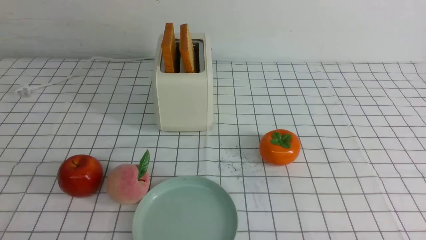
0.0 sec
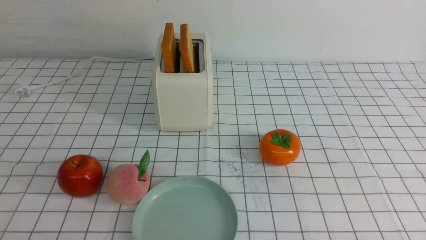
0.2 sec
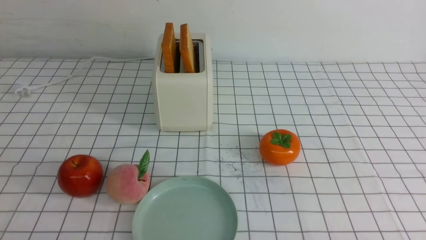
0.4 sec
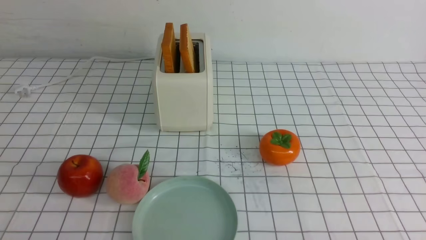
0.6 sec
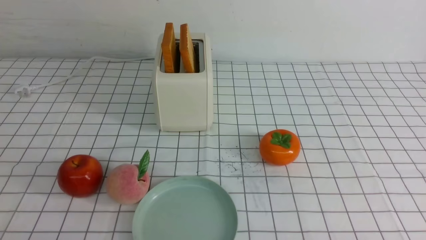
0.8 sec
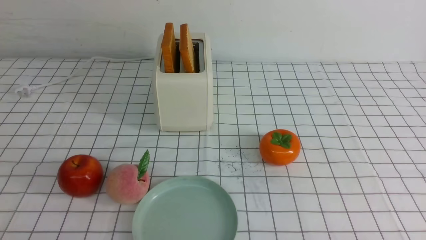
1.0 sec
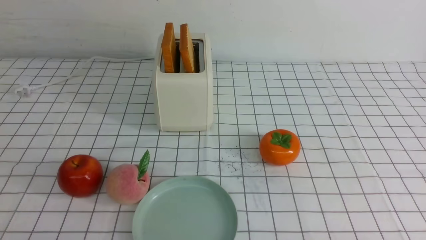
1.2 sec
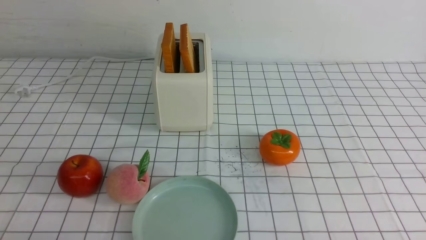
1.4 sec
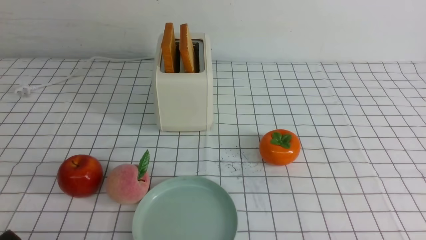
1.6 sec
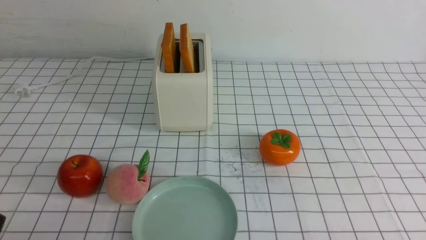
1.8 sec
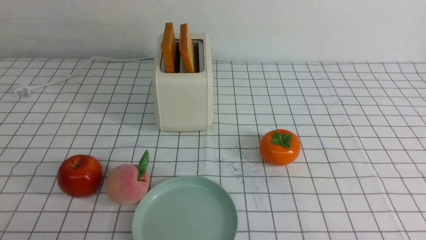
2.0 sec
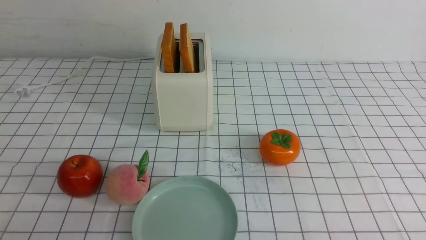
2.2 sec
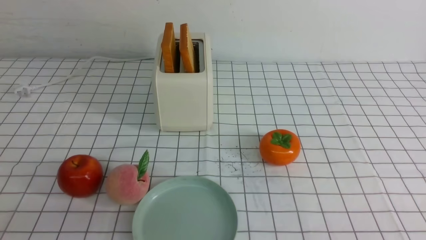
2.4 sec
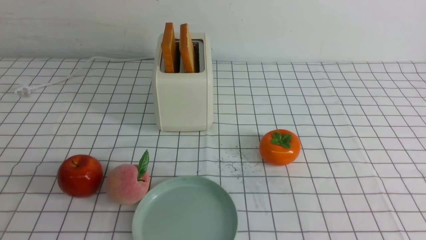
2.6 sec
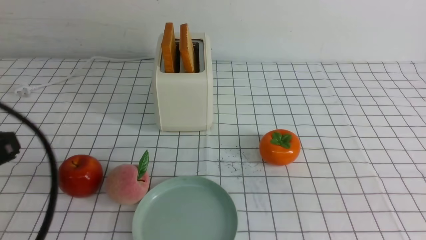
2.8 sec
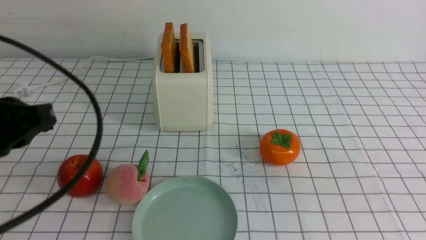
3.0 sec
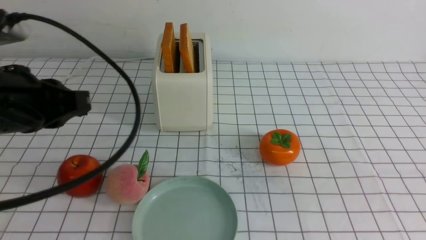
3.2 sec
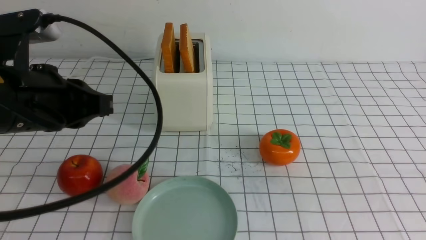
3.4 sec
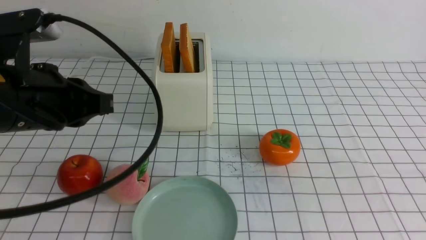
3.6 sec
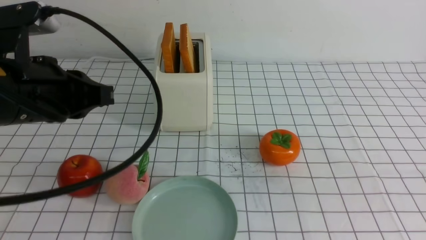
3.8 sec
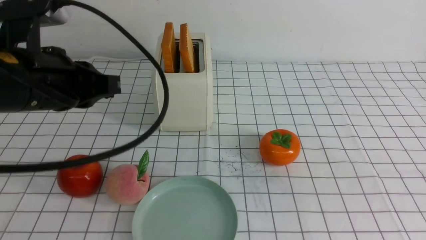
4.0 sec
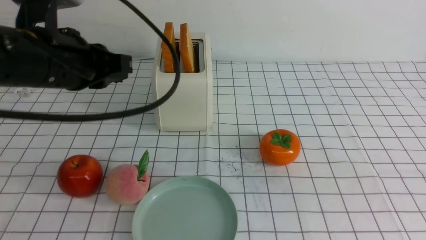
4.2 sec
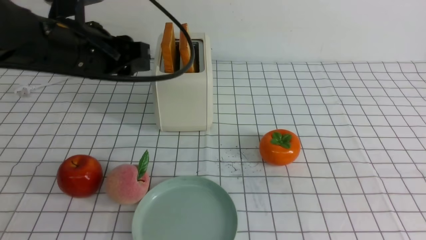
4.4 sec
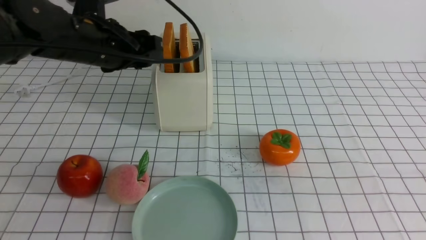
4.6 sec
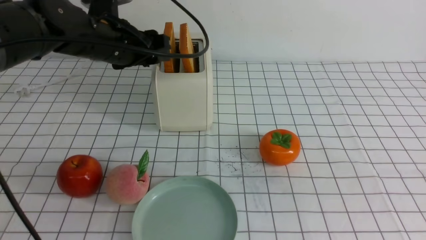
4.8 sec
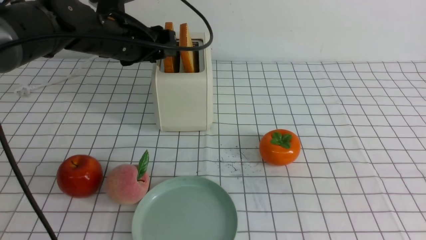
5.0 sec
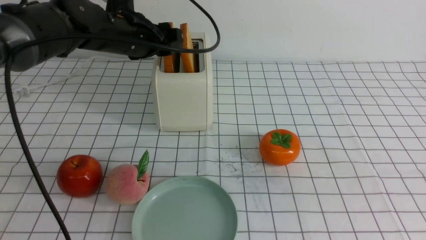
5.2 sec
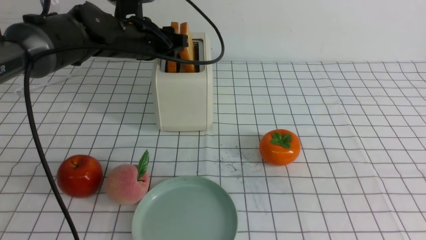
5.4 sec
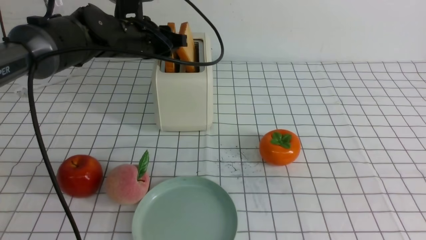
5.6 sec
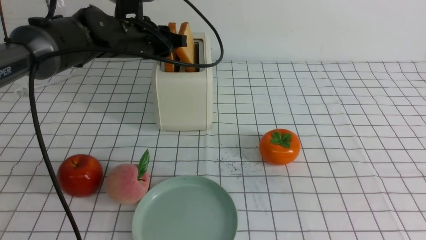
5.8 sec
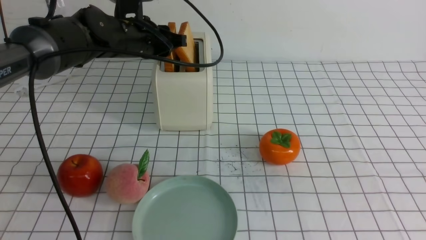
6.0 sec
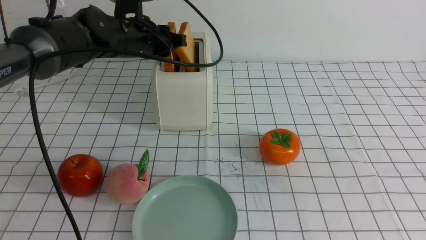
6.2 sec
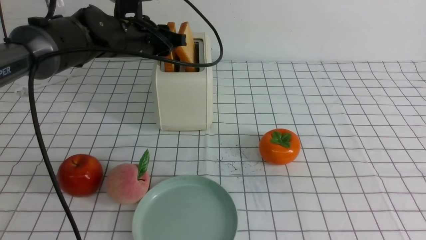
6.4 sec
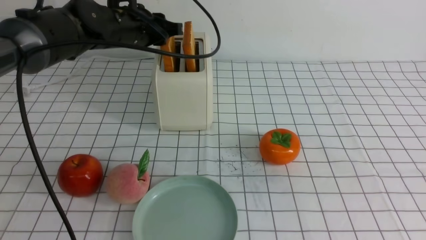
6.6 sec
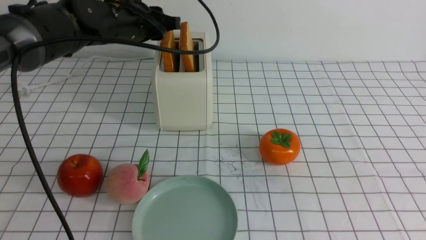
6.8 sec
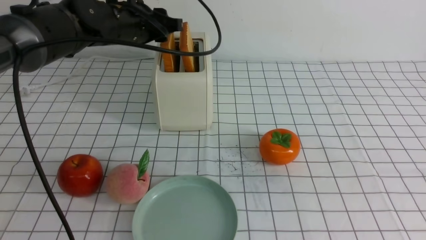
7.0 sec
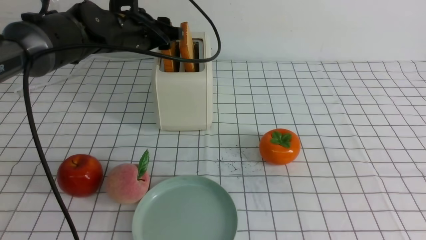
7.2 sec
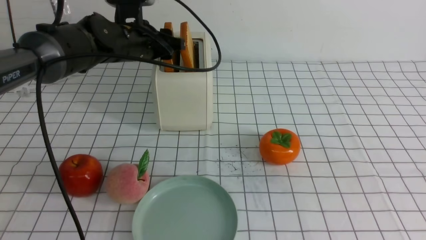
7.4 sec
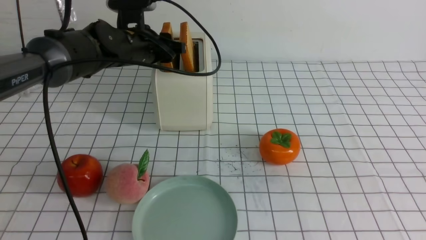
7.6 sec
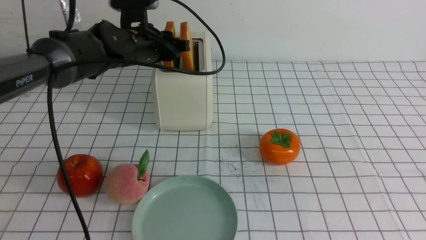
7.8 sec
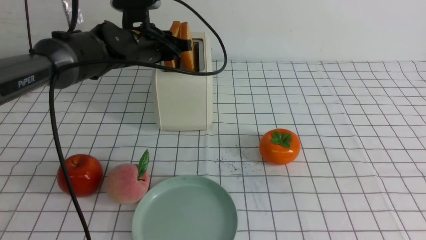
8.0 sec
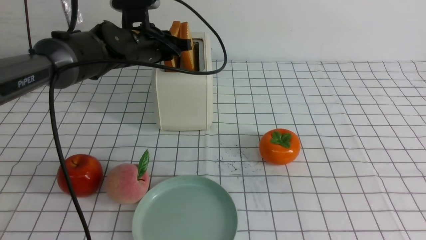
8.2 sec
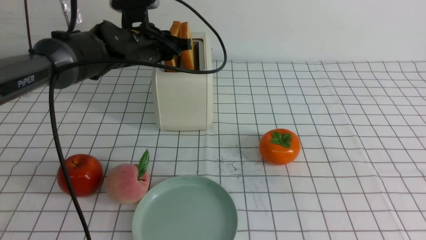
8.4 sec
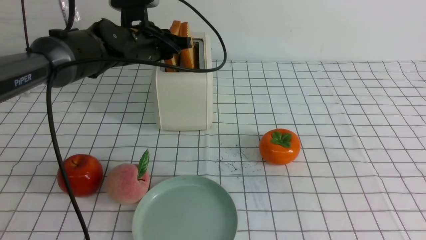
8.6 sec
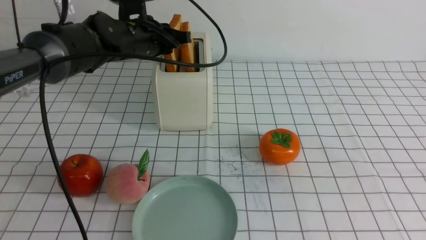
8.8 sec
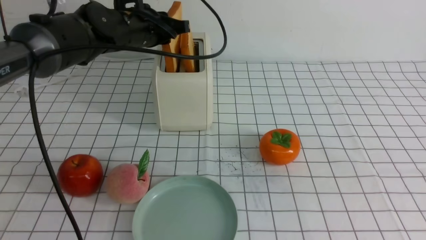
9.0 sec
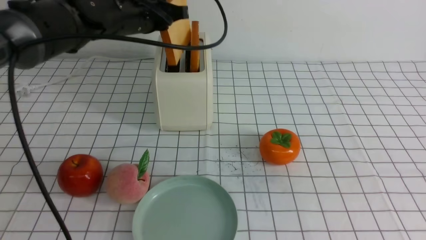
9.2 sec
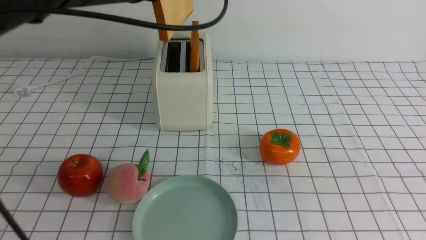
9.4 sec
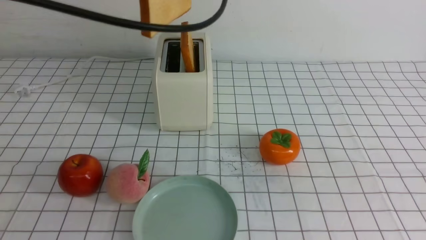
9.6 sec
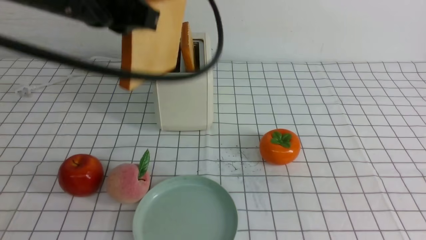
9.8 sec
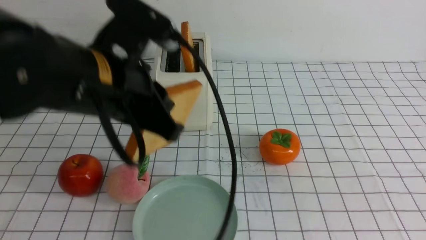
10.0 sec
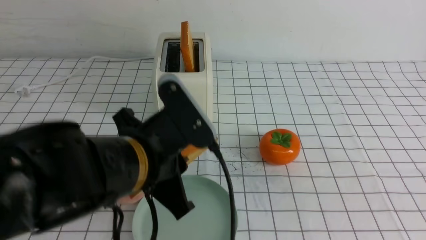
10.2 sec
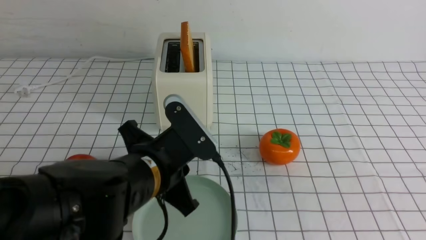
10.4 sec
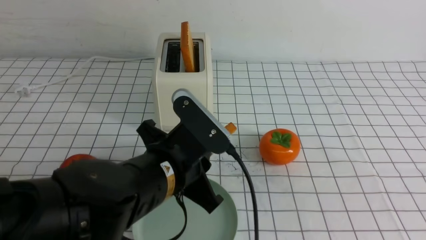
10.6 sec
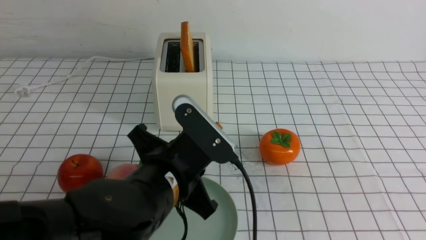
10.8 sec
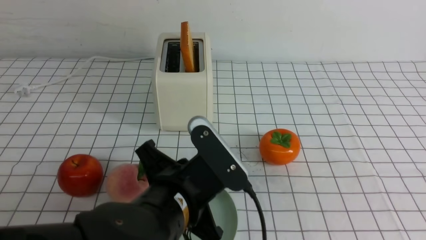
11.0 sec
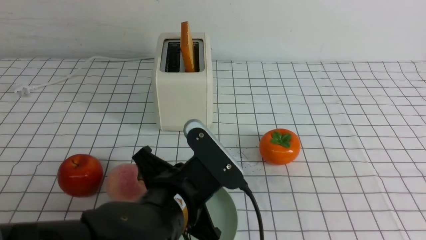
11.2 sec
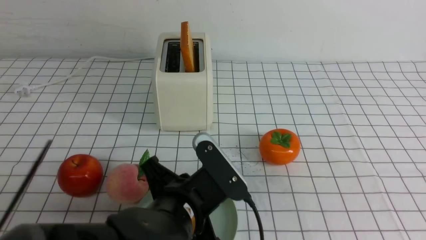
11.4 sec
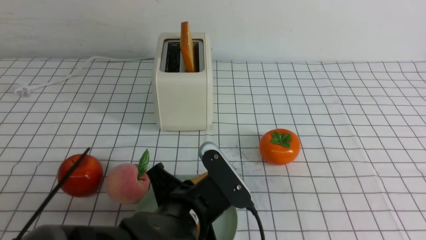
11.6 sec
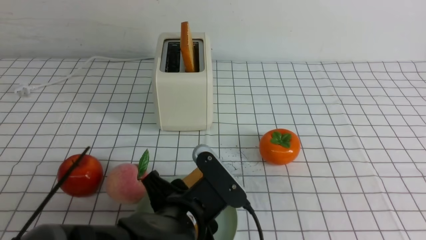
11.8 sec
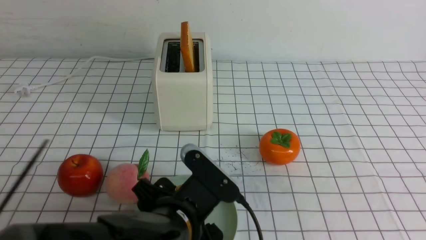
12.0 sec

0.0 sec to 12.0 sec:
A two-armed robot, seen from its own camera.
Task of the whole recording: take toasted bread from bread machine on white checkered table place on plate.
Step, 0.0 sec to 9.2 sec: use the left arm to take out a slice of bread.
1.6 sec to 3.0 sec: The left gripper shifts about 20 cm upward and forward, and closes its fingers.
3.0 sec to 4.4 sec: The left gripper is displaced forward by about 15 cm, and opens.
4.4 sec to 6.0 sec: The left gripper moves forward, approximately 10 cm.
6.0 sec to 7.6 sec: There are only small adjustments of the grippers.
7.6 sec to 9.0 sec: The left gripper shifts by approximately 5 cm, and closes up.
9.0 sec to 10.4 sec: The left gripper is displaced backward by about 25 cm.
10.4 sec to 12.0 sec: The left gripper changes place by approximately 5 cm, and opens its fingers.

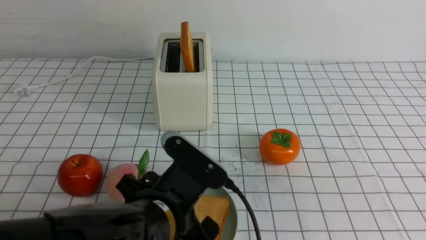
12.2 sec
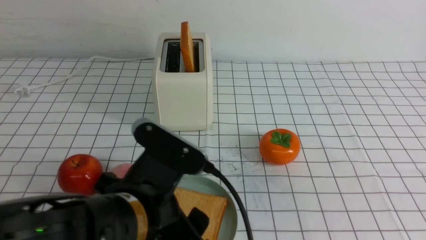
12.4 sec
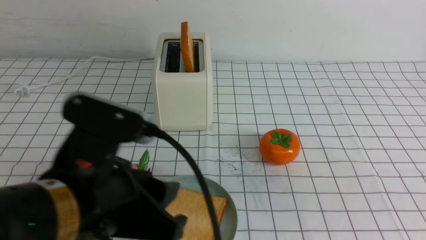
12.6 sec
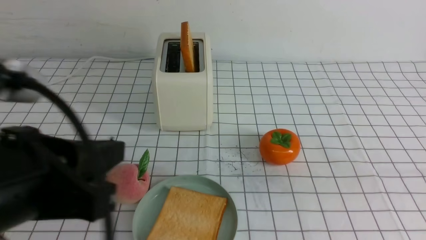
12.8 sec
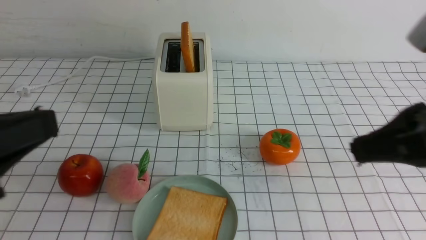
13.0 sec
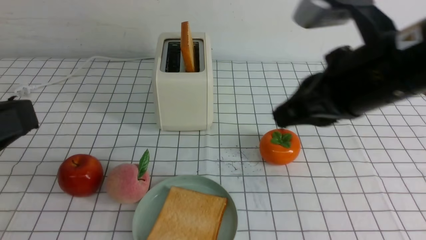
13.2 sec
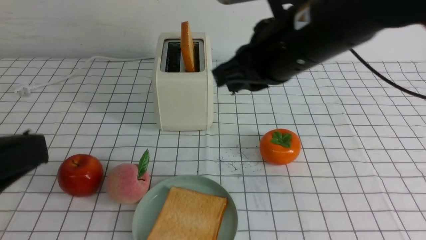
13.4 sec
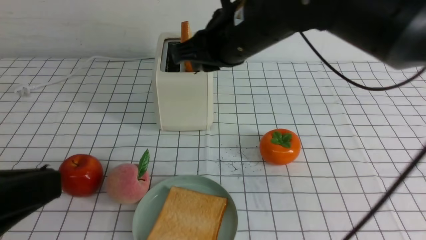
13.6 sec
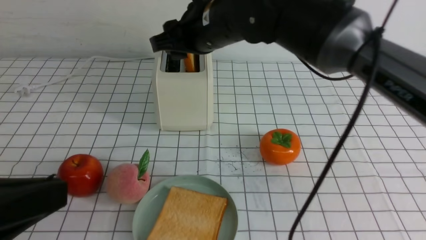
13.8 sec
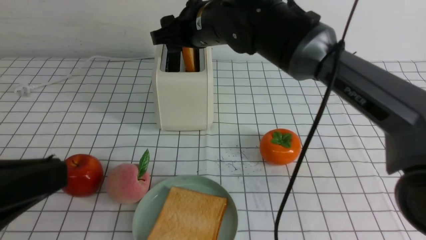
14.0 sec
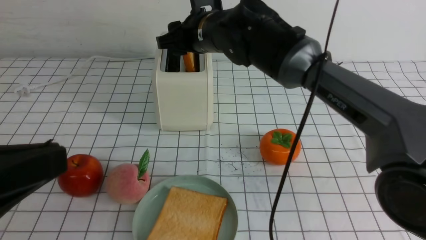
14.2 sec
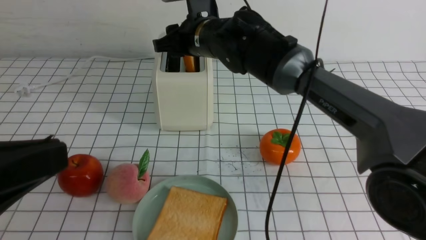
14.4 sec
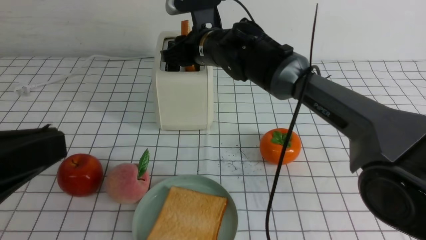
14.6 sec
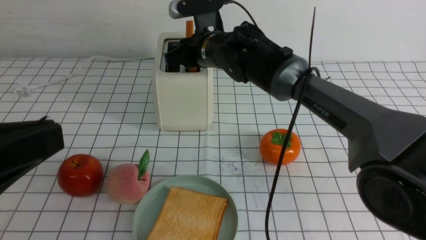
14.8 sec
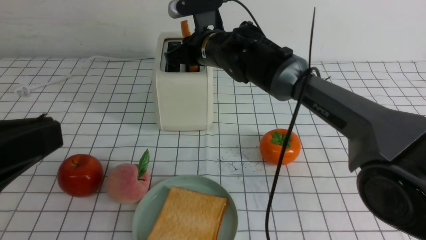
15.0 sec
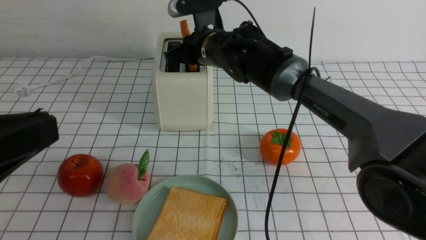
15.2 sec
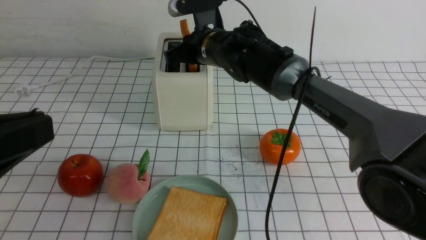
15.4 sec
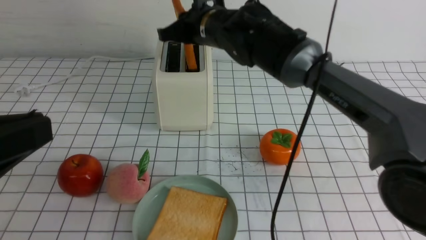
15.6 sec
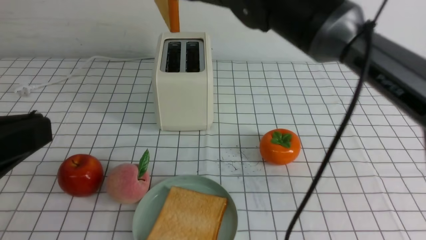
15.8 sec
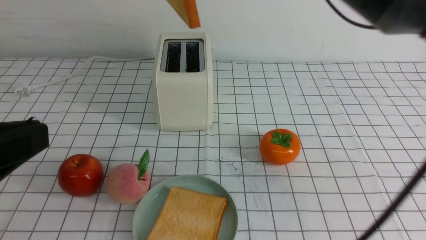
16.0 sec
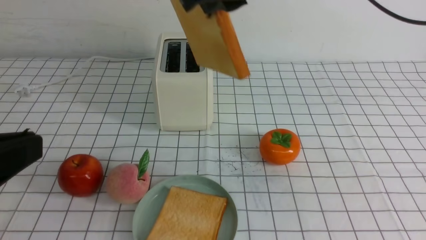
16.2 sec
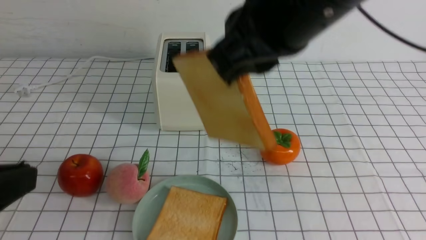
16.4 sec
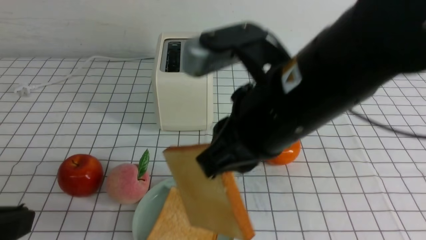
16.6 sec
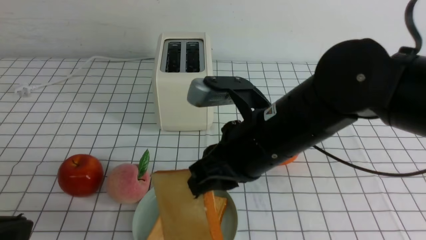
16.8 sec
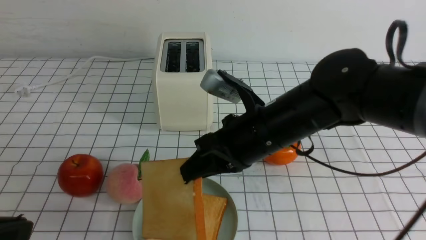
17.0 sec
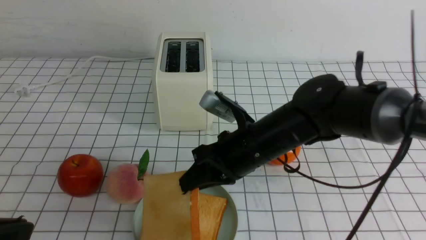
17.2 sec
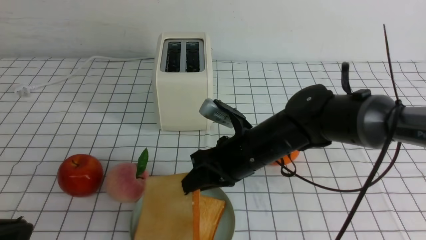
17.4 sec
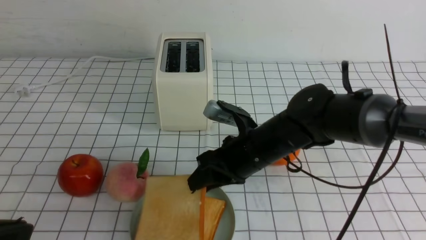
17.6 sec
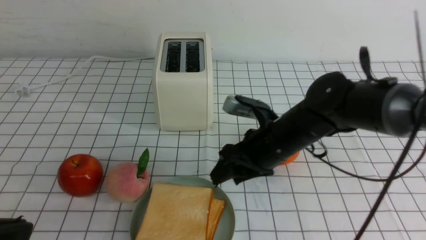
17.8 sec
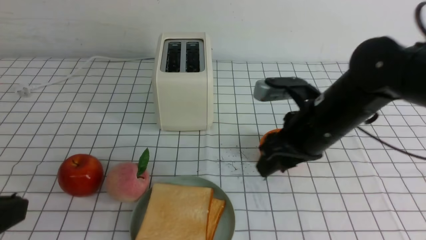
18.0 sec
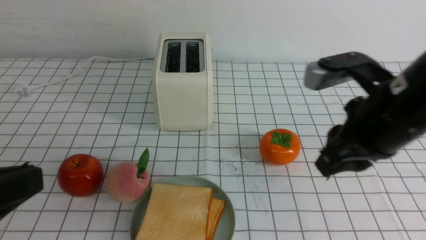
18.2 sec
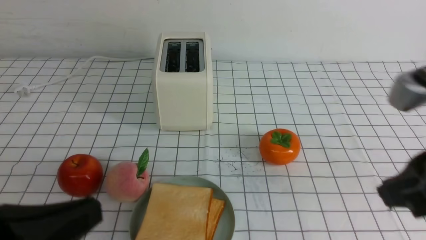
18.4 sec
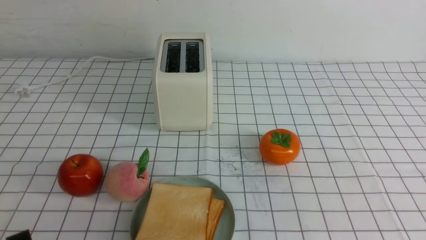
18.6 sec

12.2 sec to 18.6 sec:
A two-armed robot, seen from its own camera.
Task of the whole recording: take toasted bread from bread machine on white checkered table place on plate.
Step, 12.8 sec to 15.6 sec: use the right arm to take out a slice of bread.
Step, 15.8 sec to 17.8 sec: use the right arm to put a slice of bread into the plate.
12.2 sec to 13.8 sec: The right gripper goes some 50 cm forward and to the left, and opens up; the left gripper goes about 20 cm to the left, upward and backward, and closes its fingers.
13.8 sec to 15.4 sec: The right gripper heads forward and downward, covering about 10 cm, and closes up.
15.4 sec to 17.0 sec: The right gripper moves backward, roughly 20 cm.
17.0 sec to 18.6 sec: The right gripper travels backward and to the right by some 30 cm, and opens, then closes again; the left gripper is displaced downward by approximately 10 cm.
